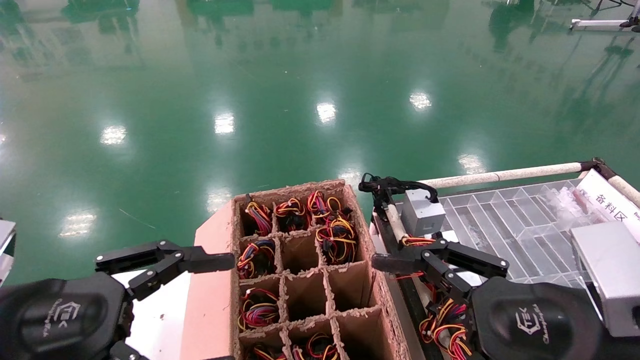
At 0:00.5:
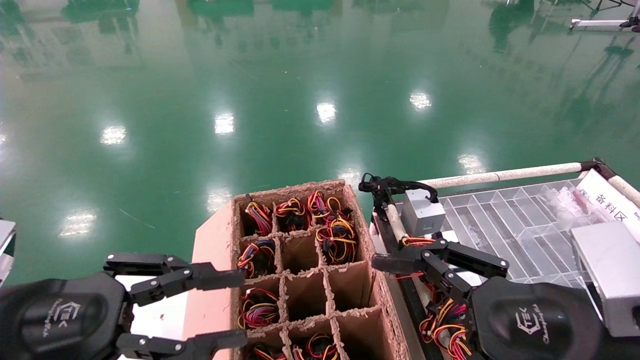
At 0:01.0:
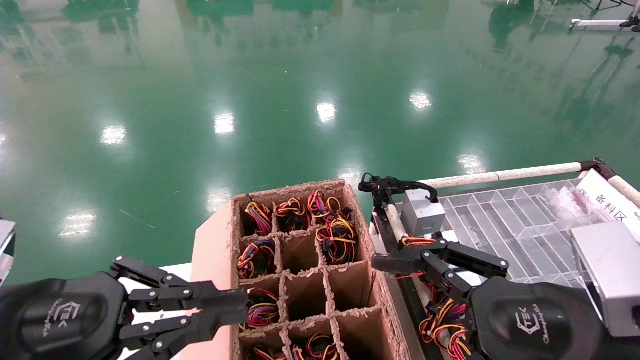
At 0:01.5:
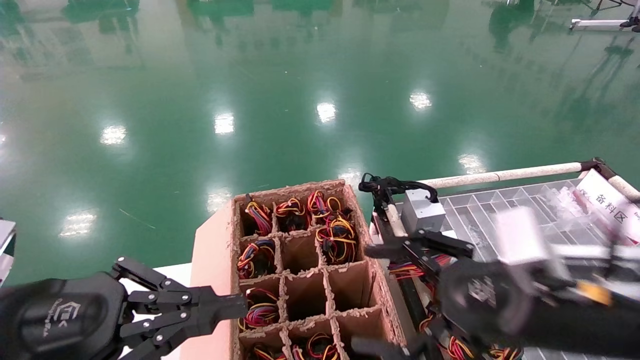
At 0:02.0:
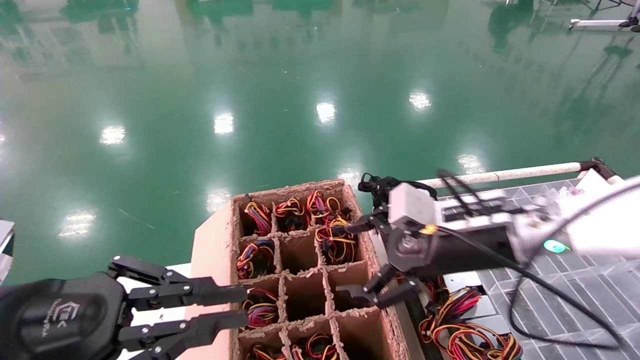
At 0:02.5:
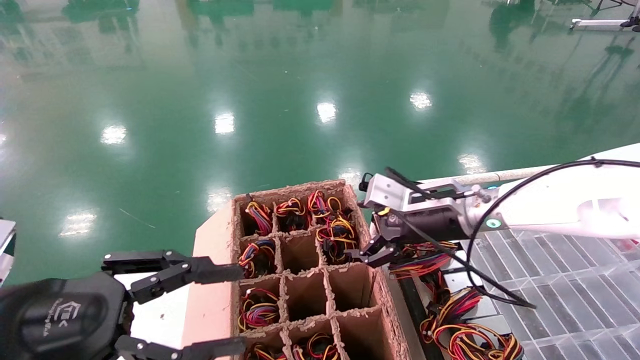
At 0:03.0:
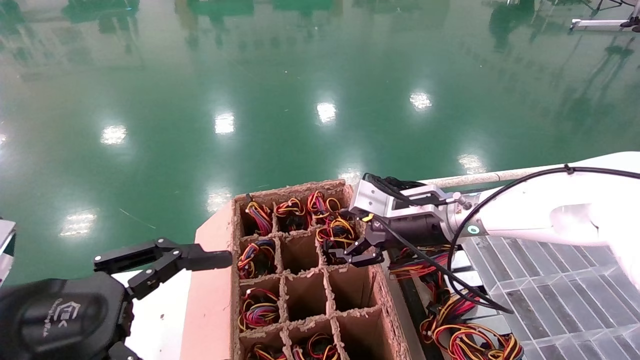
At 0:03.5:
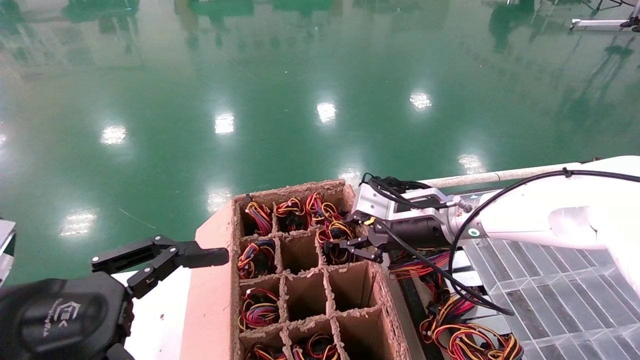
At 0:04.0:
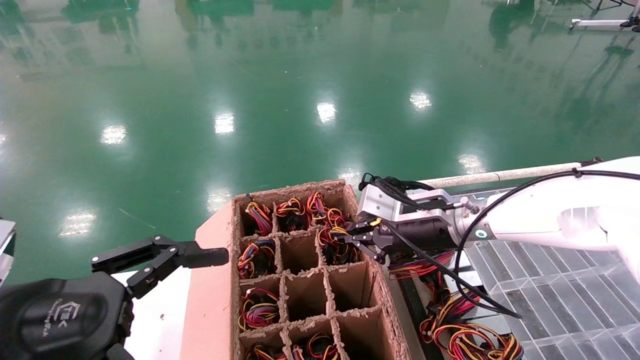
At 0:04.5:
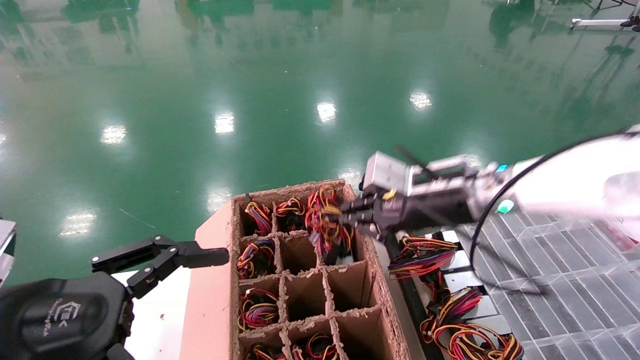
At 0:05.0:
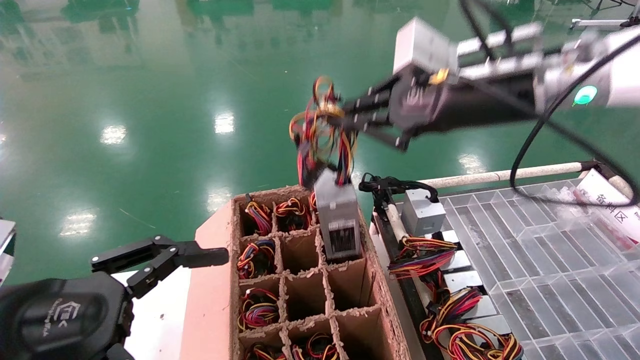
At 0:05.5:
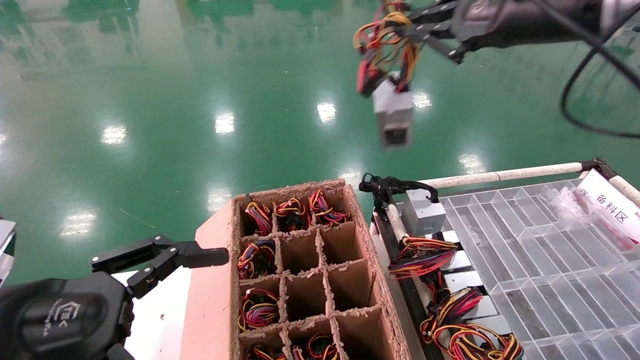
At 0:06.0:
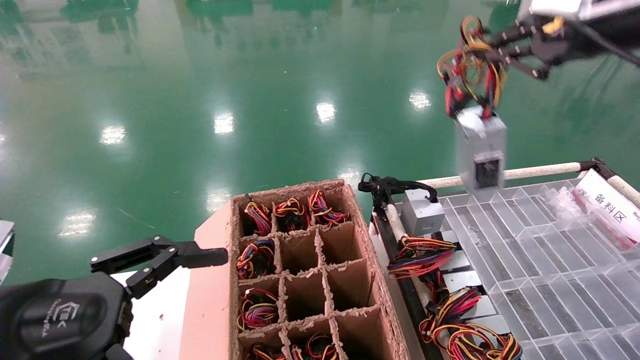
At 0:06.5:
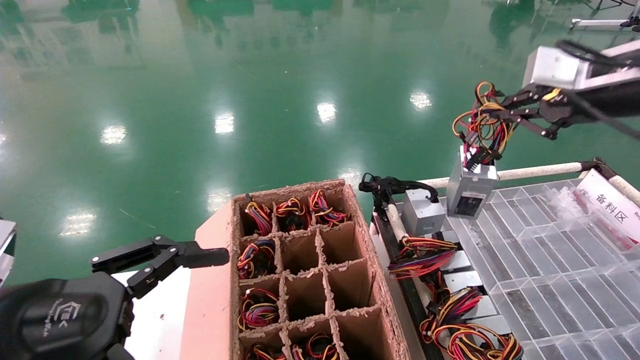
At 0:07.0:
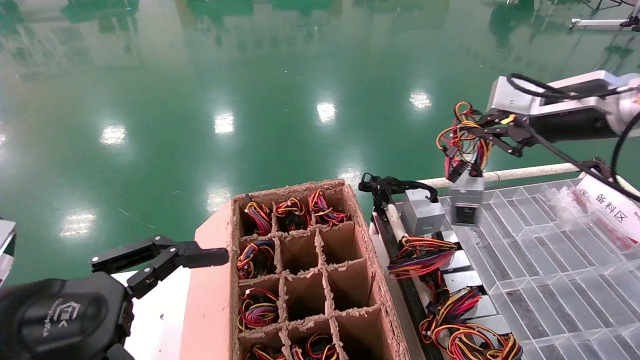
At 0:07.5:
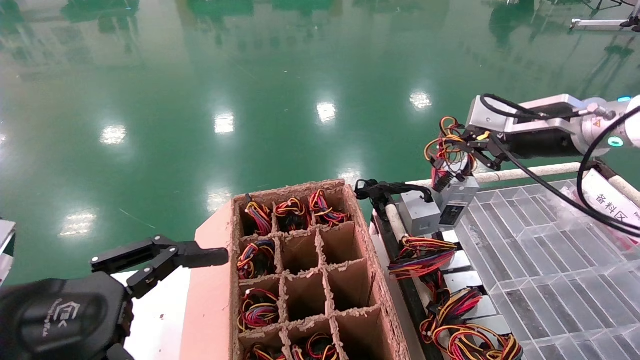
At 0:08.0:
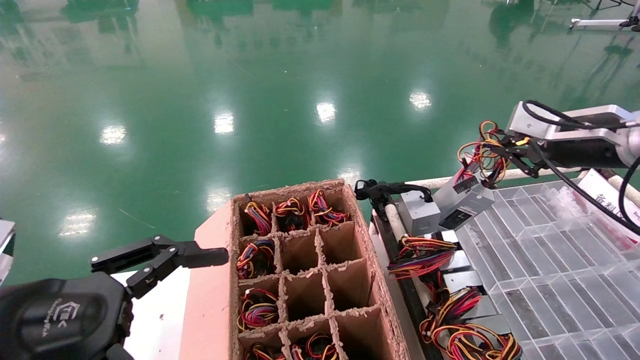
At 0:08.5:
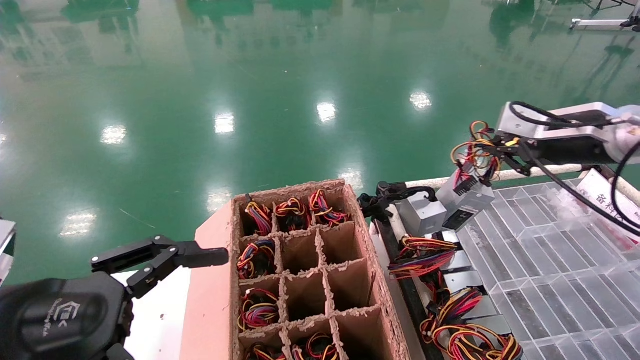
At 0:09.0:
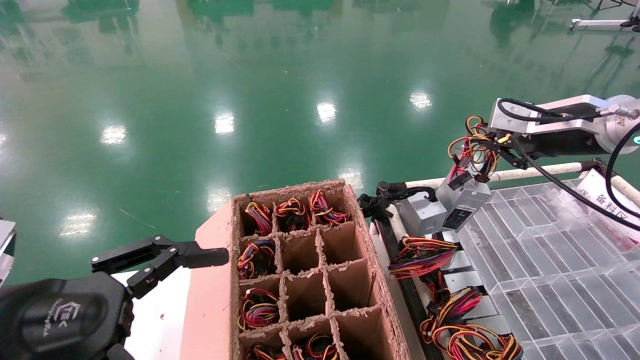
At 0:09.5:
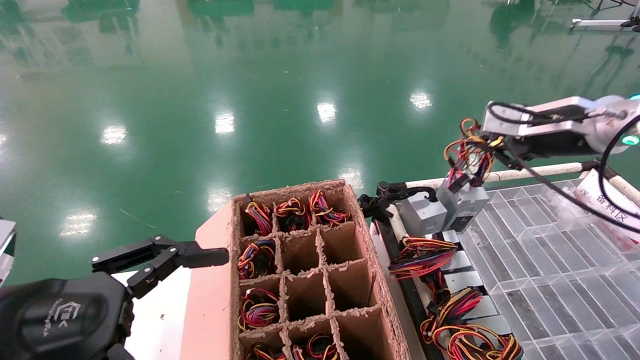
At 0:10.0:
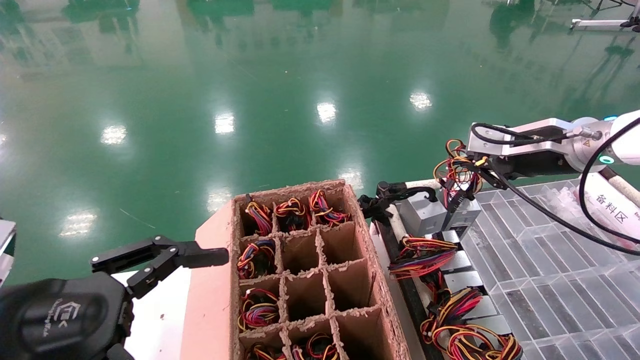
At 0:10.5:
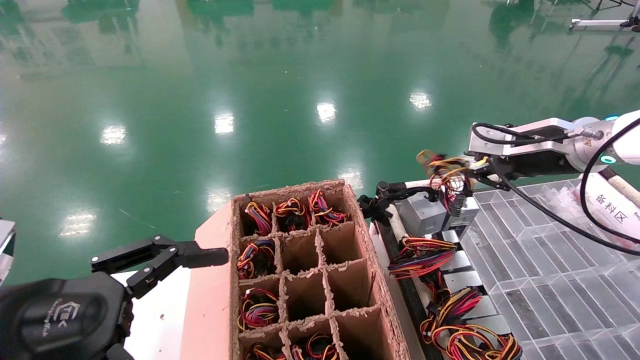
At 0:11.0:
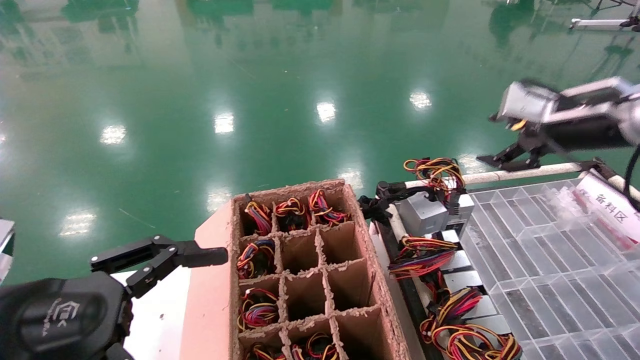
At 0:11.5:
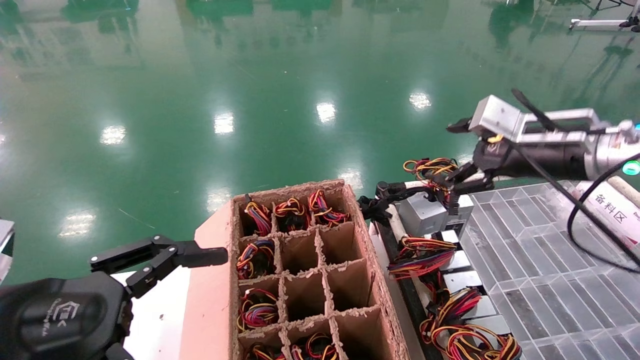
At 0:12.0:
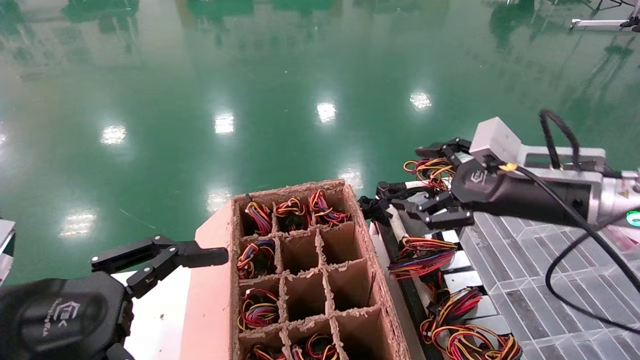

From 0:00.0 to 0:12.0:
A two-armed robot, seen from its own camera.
Step, from 0:01.5 to 0:04.0: Grab and lift the power supply from the large box.
Step, from 0:04.5 to 0:10.0: Place the power supply on the operating table.
From 0:00.0 to 0:02.0: The left gripper closes up, while the right gripper shifts about 15 cm forward.
From 0:02.0 to 0:04.0: The left gripper opens its fingers; the right gripper is displaced forward by roughly 10 cm, and closes up.
From 0:04.0 to 0:06.0: The right gripper heads upward, to the right and backward, covering some 30 cm.
From 0:06.0 to 0:08.0: The right gripper is displaced downward and forward by approximately 15 cm.
From 0:08.0 to 0:10.0: The right gripper changes place by approximately 5 cm.
From 0:10.0 to 0:12.0: The right gripper heads backward, covering some 5 cm, and opens.

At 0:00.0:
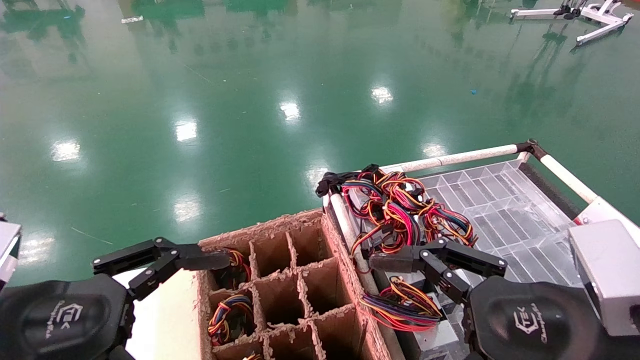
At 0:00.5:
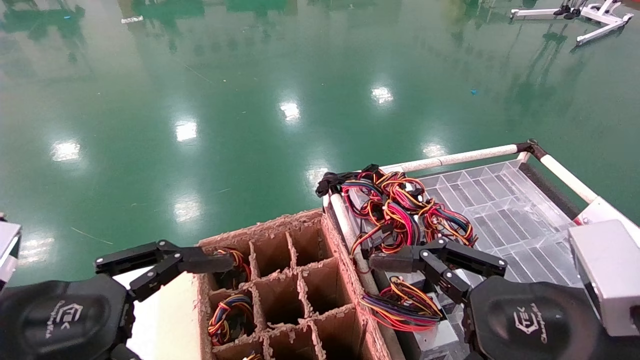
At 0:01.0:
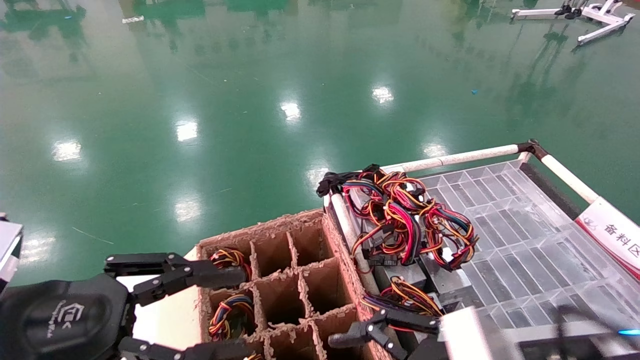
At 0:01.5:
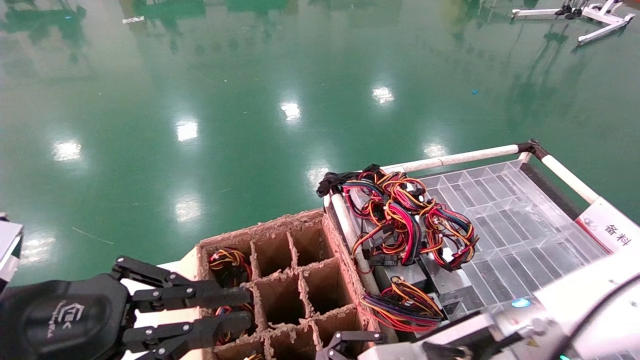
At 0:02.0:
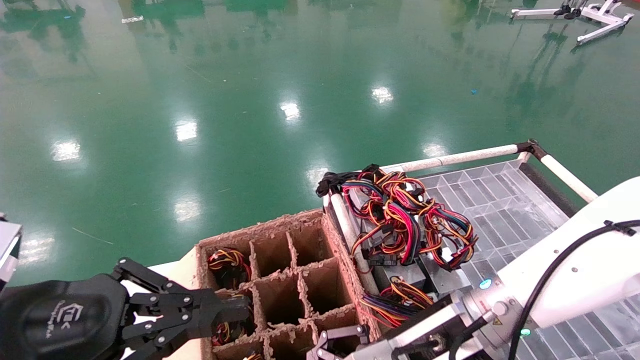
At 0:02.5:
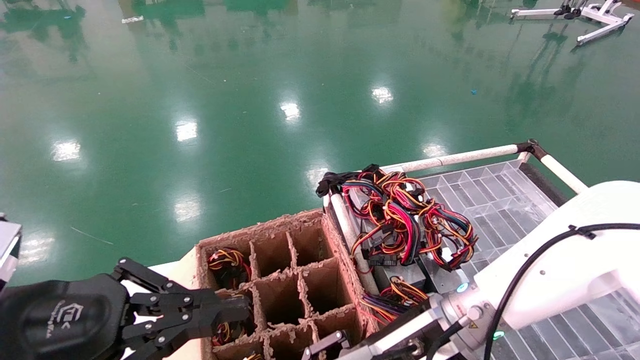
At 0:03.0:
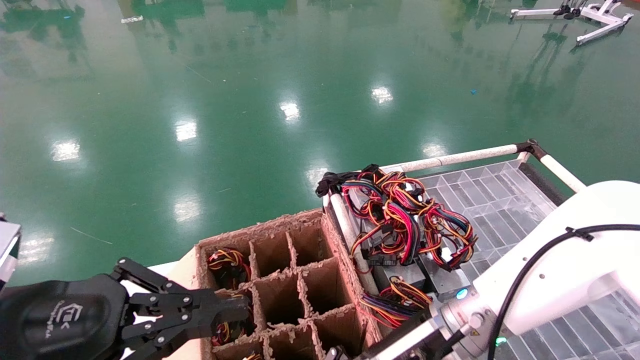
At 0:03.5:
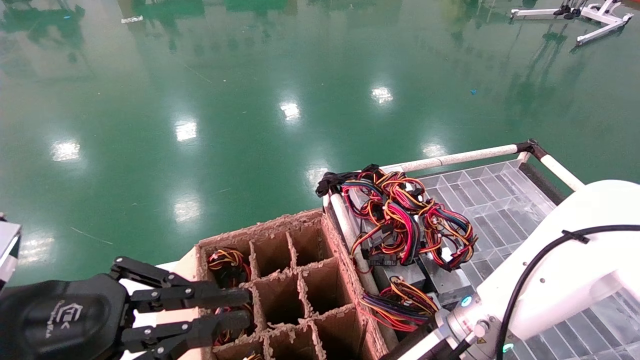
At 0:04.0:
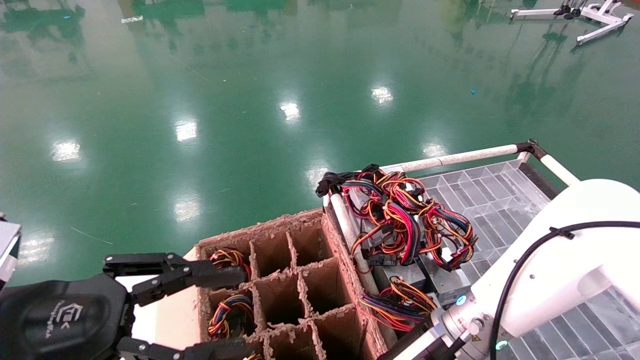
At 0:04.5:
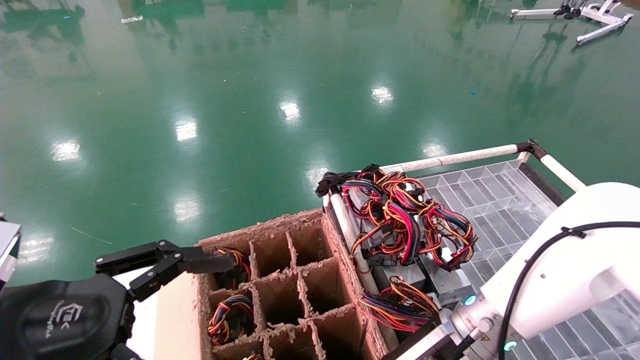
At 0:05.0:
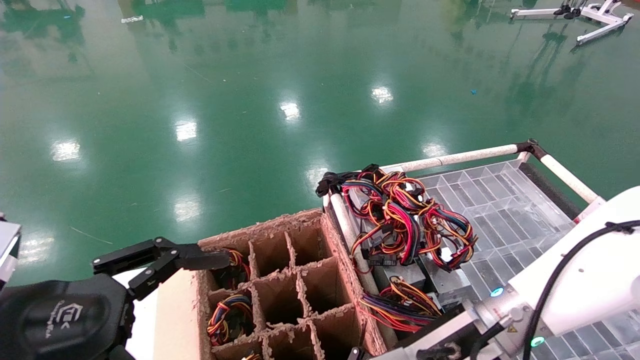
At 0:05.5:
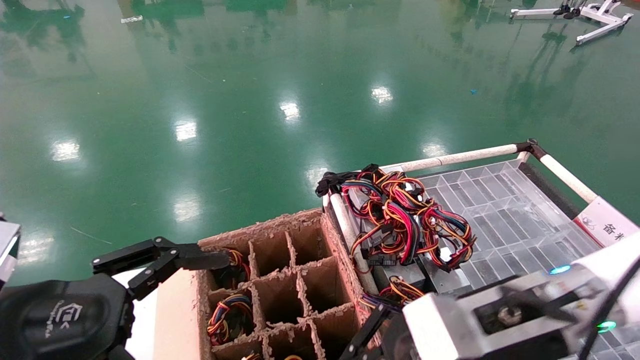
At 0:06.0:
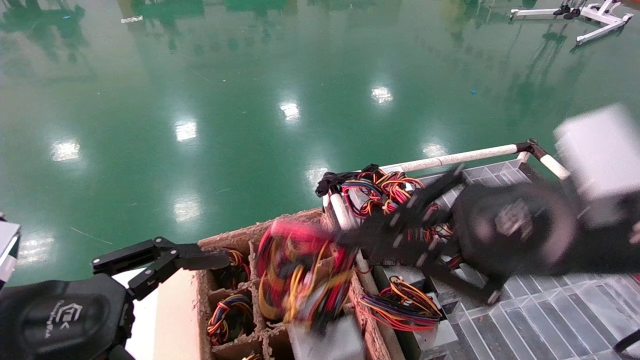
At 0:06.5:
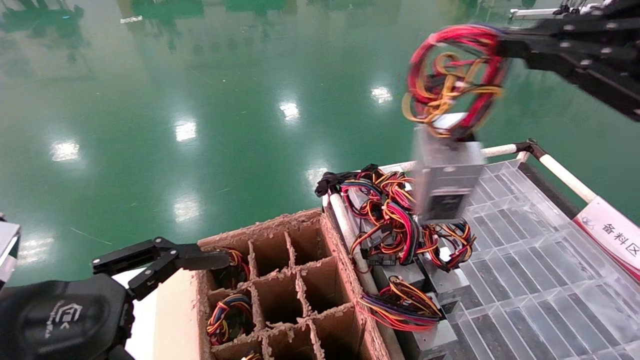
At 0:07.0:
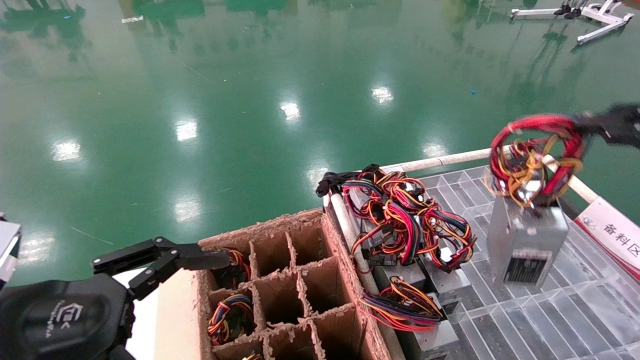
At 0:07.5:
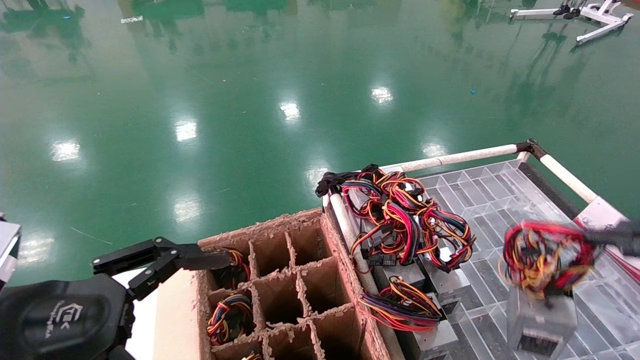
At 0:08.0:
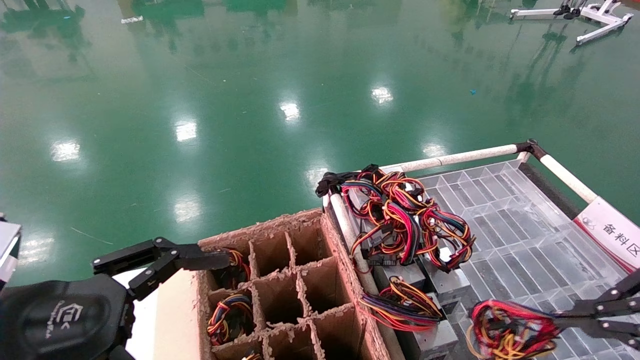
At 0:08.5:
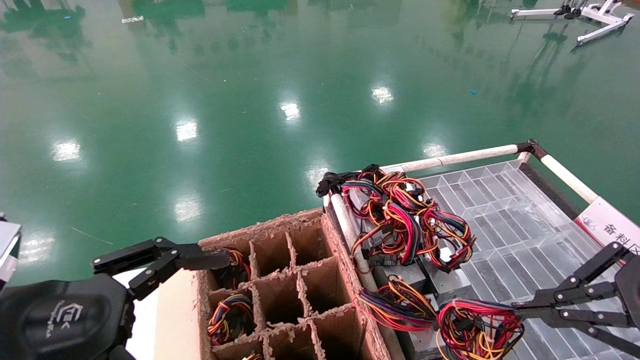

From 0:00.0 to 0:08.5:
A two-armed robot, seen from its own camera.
Step, from 0:01.0 to 0:03.0: Grab and lift the power supply from the large box.
From 0:00.0 to 0:02.0: The left gripper closes its fingers; the right gripper travels forward, to the left and downward by some 15 cm.
From 0:02.0 to 0:04.0: The right gripper closes. The left gripper opens.
From 0:04.0 to 0:06.5: The left gripper opens up. Meanwhile the right gripper heads upward, to the right and backward, covering approximately 35 cm.
From 0:06.5 to 0:08.5: The right gripper goes roughly 10 cm downward.
